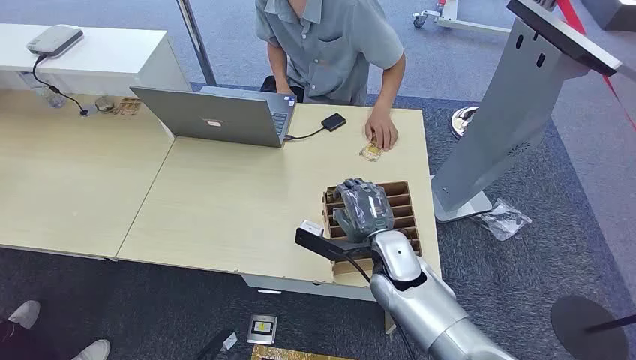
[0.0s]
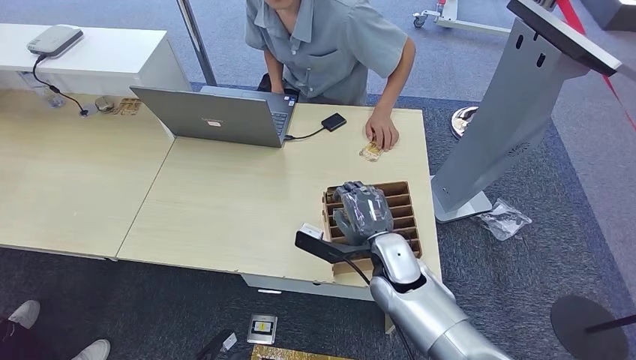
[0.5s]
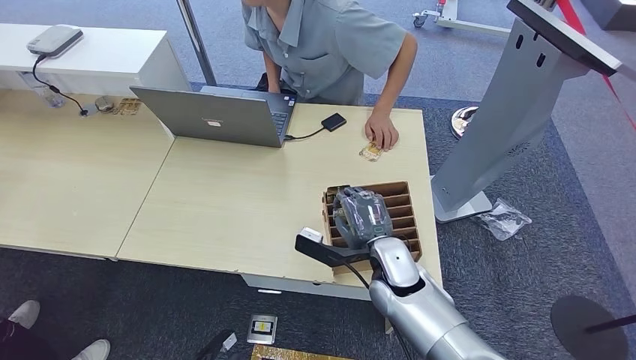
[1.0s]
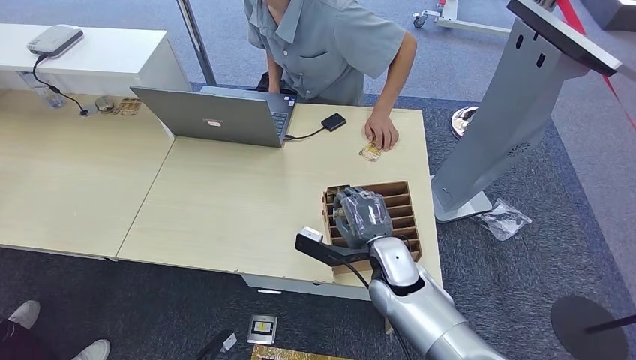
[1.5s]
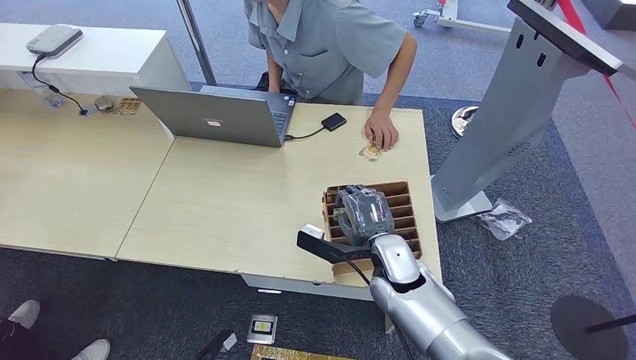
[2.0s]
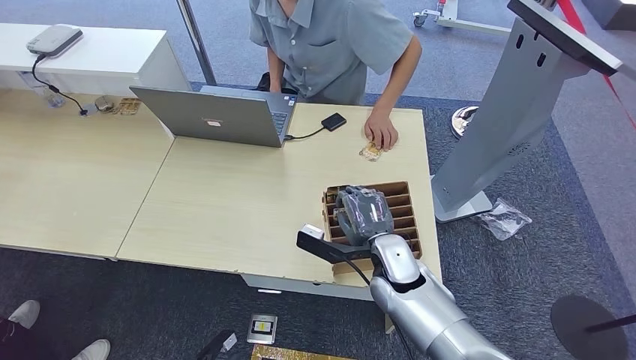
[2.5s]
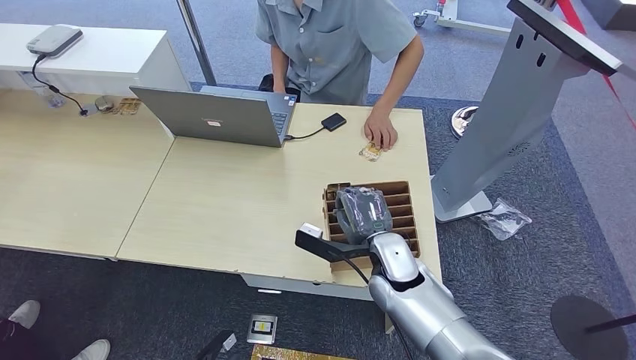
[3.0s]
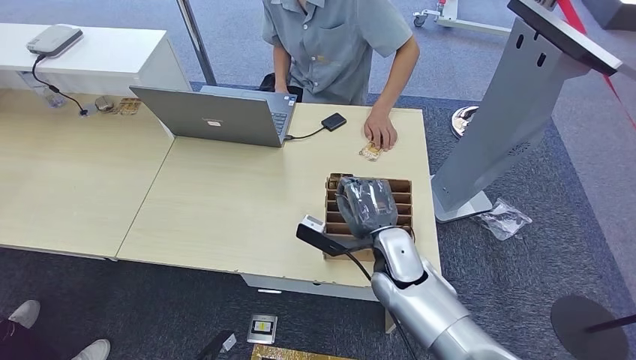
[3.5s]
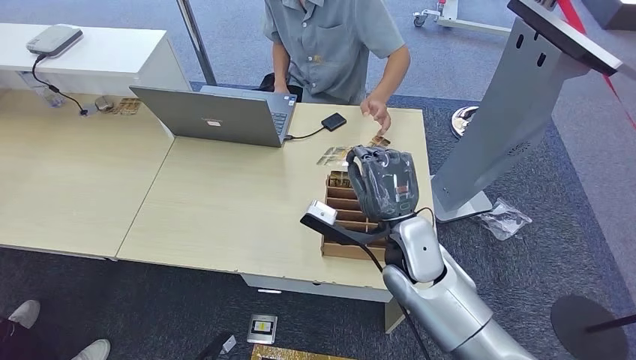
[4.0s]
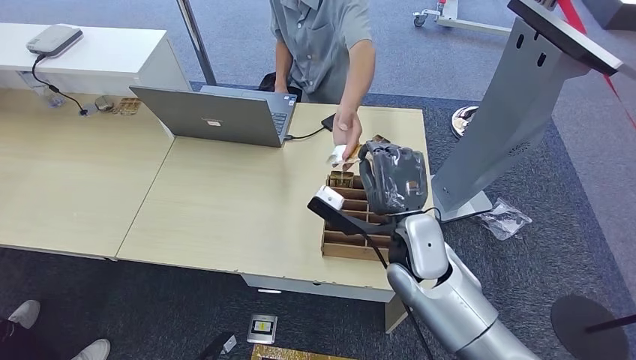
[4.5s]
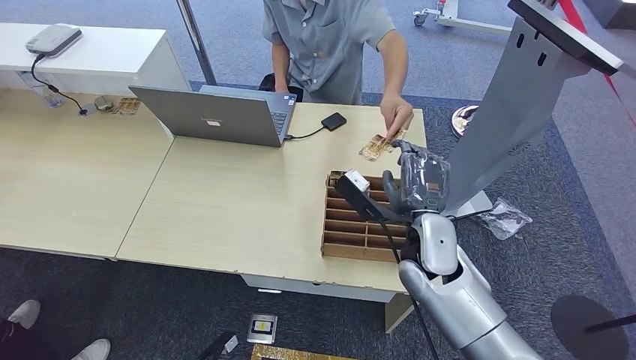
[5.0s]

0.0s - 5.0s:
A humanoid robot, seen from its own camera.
Step, 0.0s - 3.5s: Pick up the room card from the card holder.
Step, 4.5s - 5.0s: Hand the room card to the target.
2.5s - 5.0s: The right hand shifts roughly 5 cm upward.
